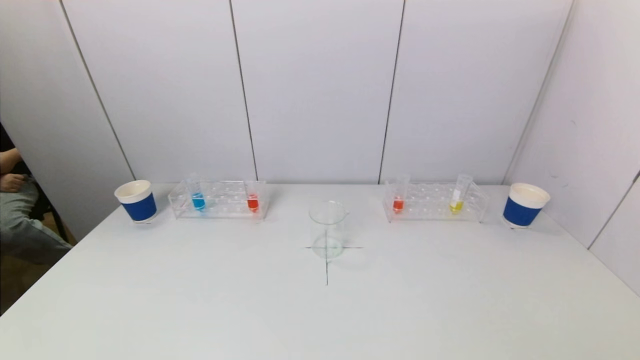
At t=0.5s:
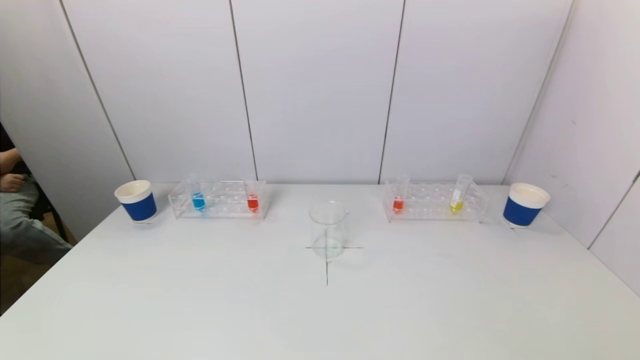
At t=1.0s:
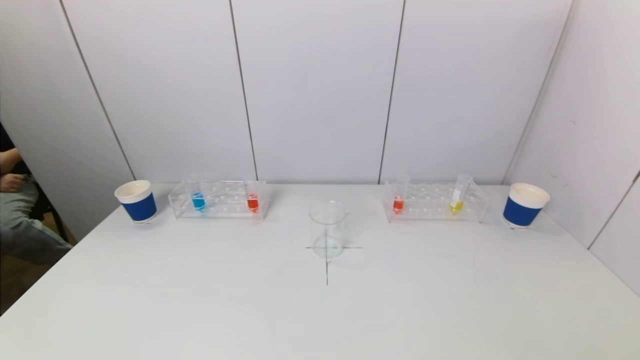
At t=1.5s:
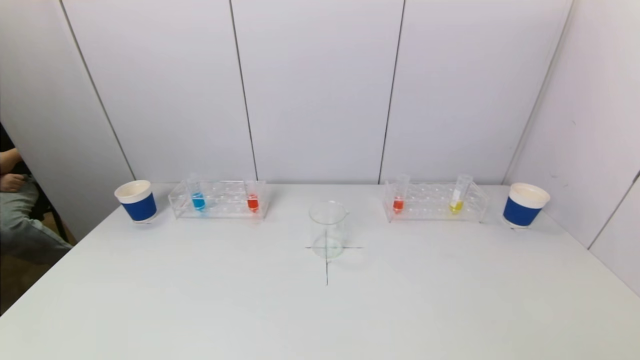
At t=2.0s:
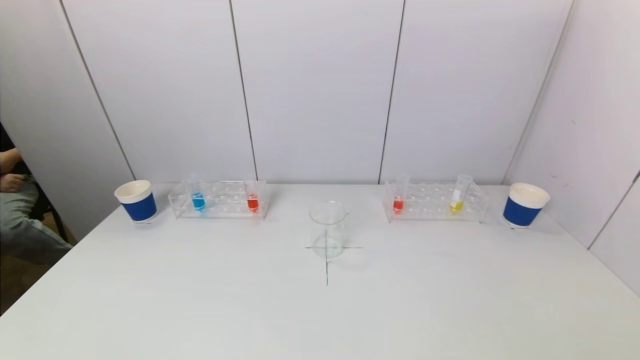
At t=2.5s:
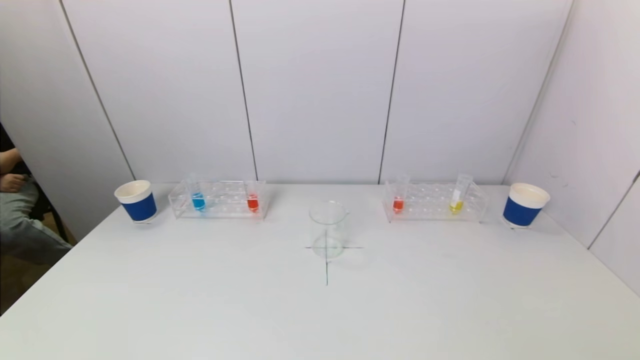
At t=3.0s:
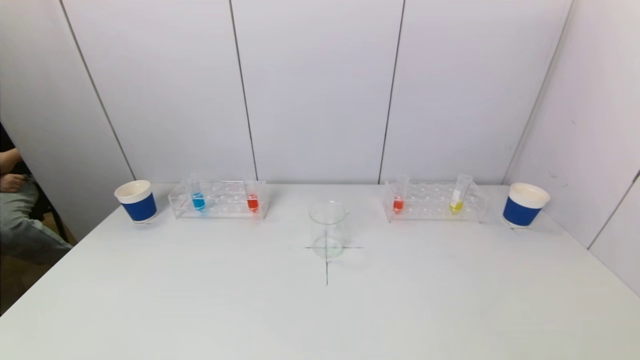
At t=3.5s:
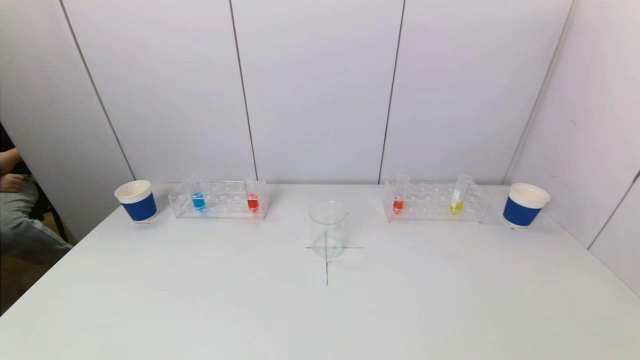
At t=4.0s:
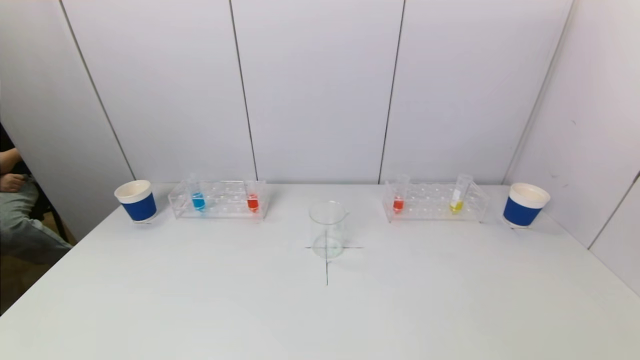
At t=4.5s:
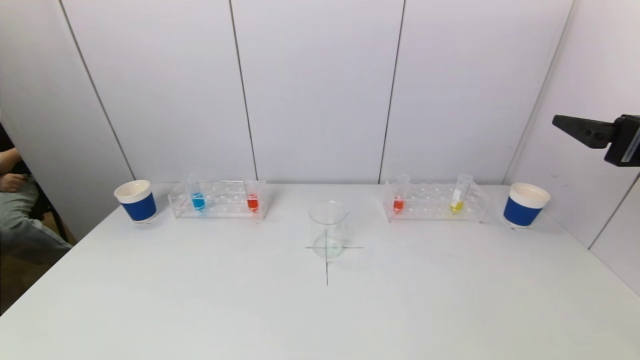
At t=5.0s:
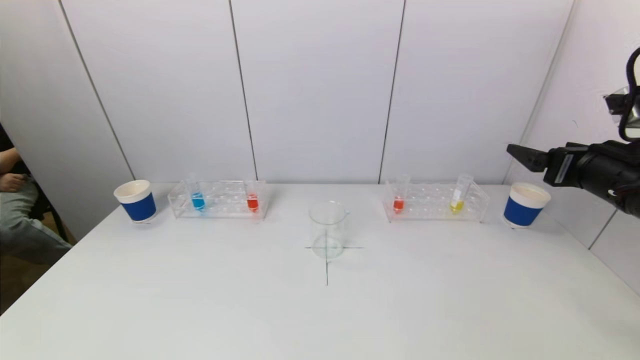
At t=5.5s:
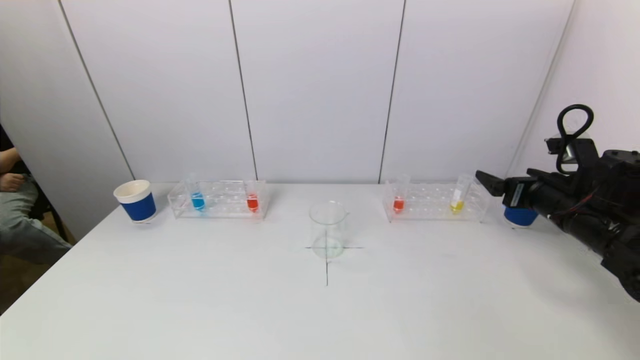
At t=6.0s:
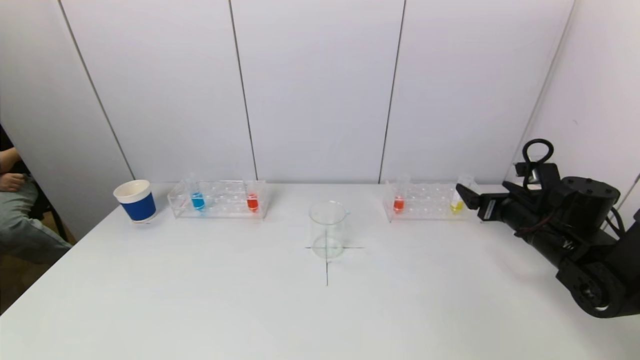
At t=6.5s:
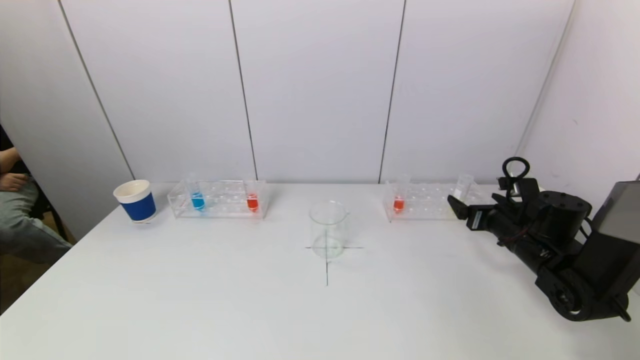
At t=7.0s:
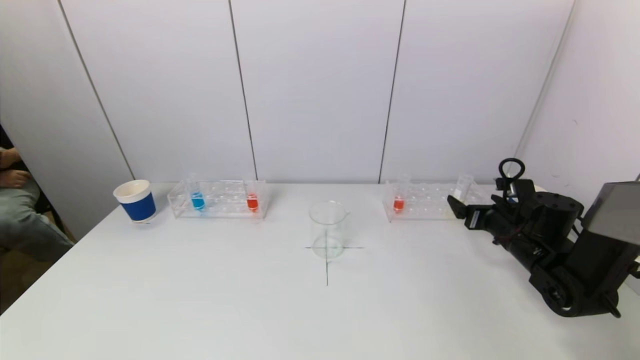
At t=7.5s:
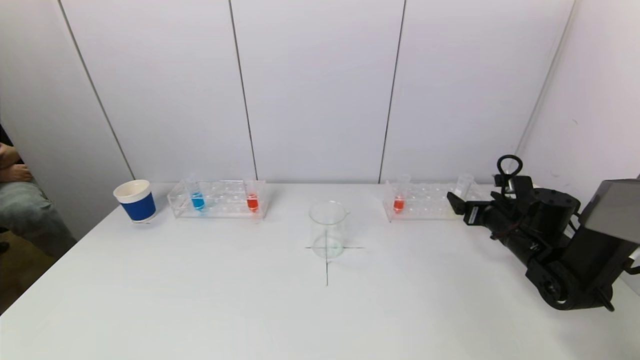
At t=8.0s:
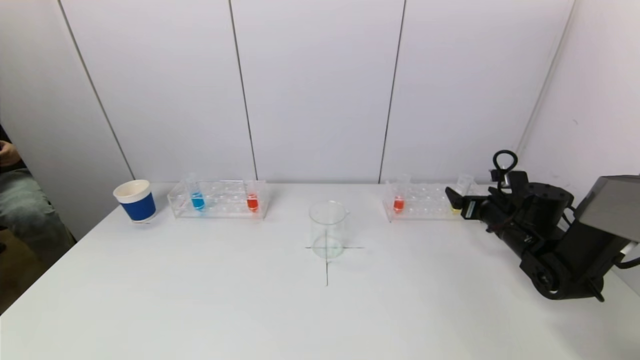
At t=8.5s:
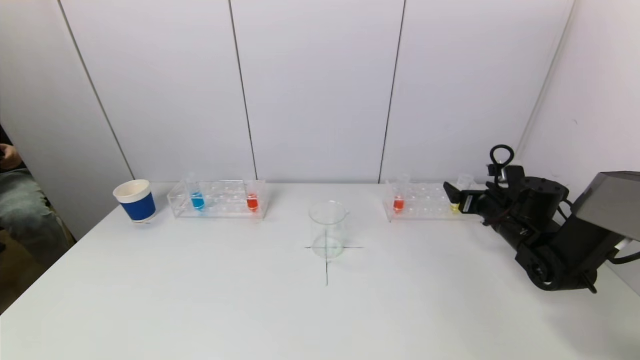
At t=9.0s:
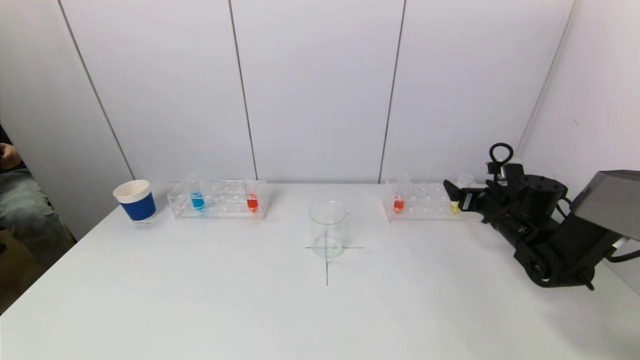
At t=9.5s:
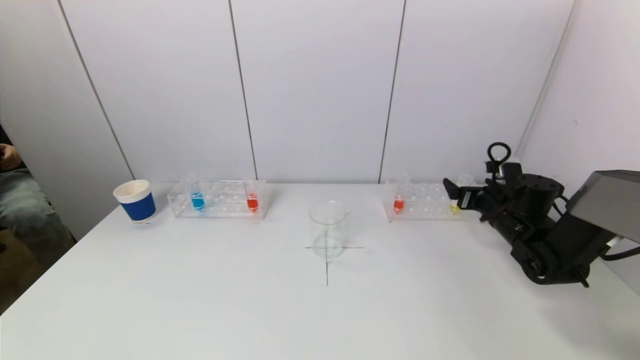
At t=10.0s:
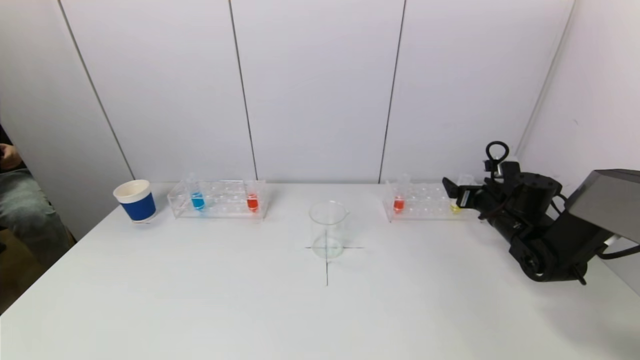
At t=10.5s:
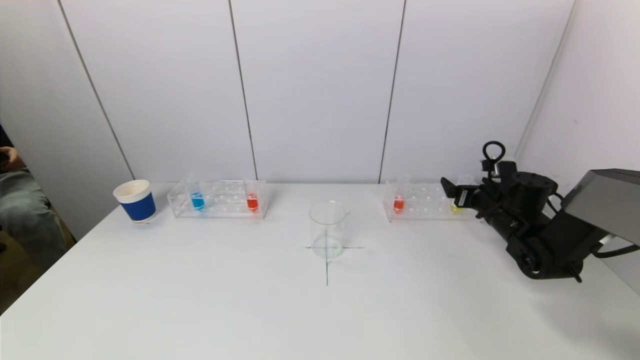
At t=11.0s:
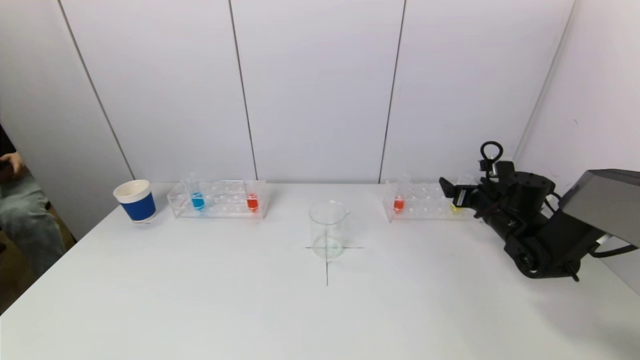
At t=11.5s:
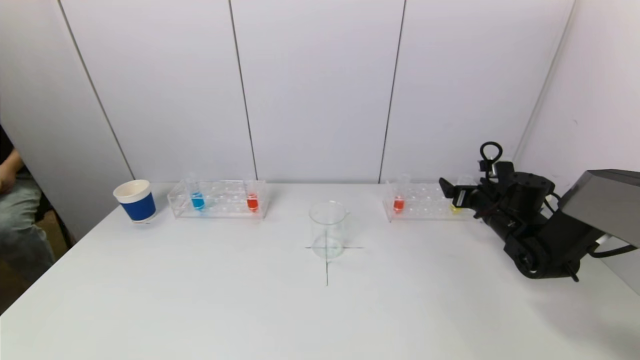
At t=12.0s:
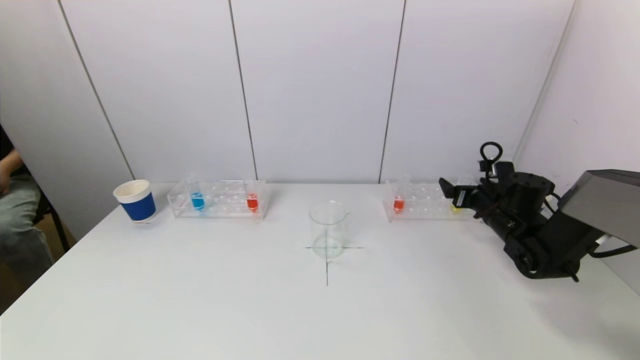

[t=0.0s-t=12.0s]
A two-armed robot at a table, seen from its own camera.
Task of the whole recording: pick up a test tube with pigment on left test tube rack and a test tube with pigment on right test tube rack by grippers and pour them into the beaker.
t=0.0s to t=2.0s: Neither gripper changes place.
t=4.0s to t=6.0s: The right gripper is displaced downward and forward by approximately 30 cm.
t=6.0s to t=8.0s: The right gripper shifts by about 5 cm.
t=8.0s to t=10.0s: The grippers move only a little.
t=10.0s to t=12.0s: Neither gripper changes place.

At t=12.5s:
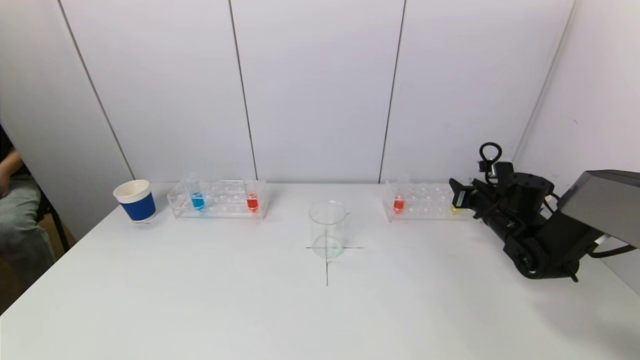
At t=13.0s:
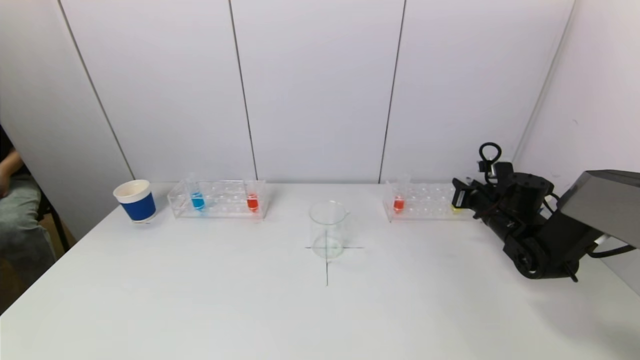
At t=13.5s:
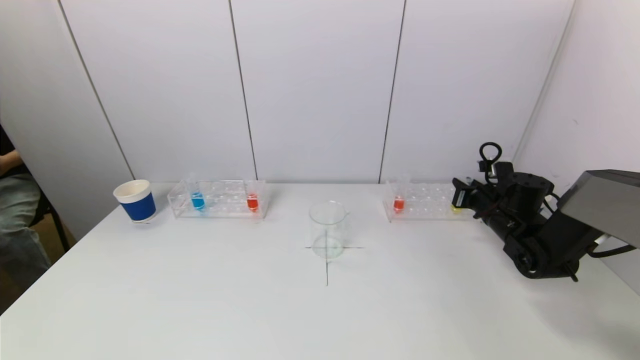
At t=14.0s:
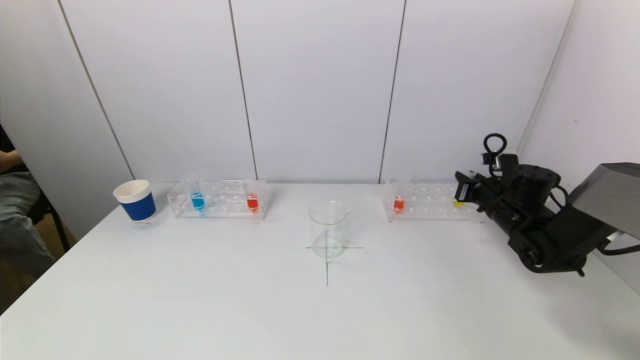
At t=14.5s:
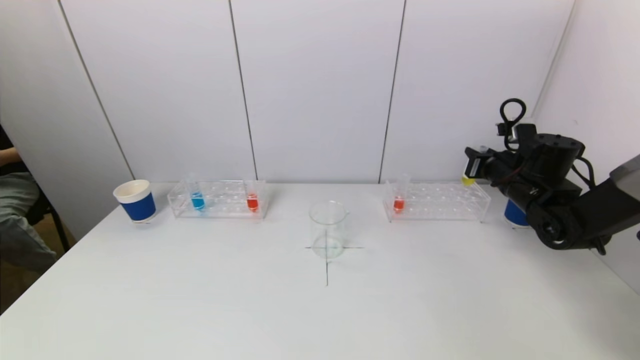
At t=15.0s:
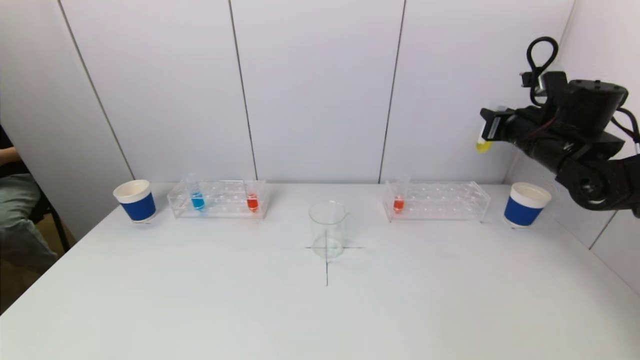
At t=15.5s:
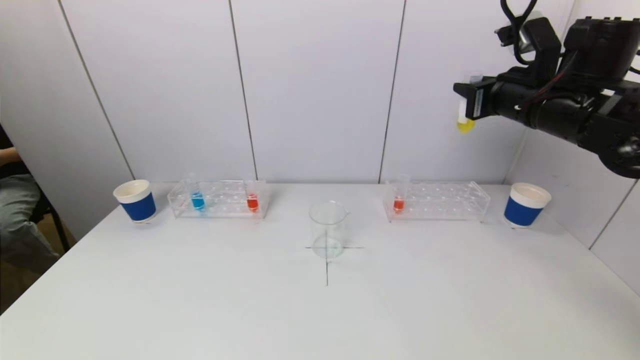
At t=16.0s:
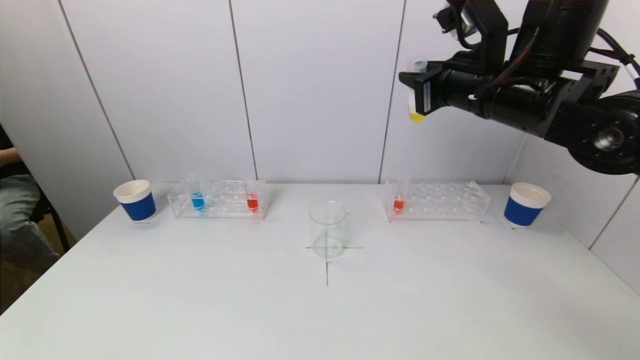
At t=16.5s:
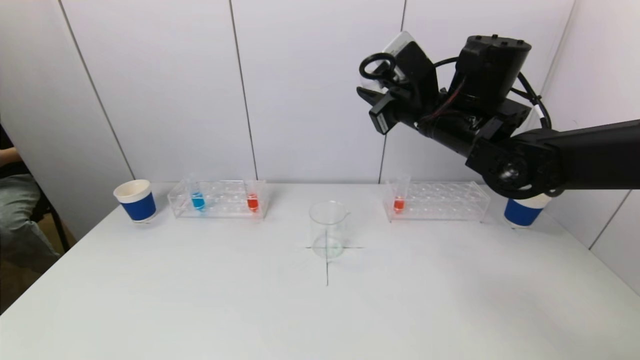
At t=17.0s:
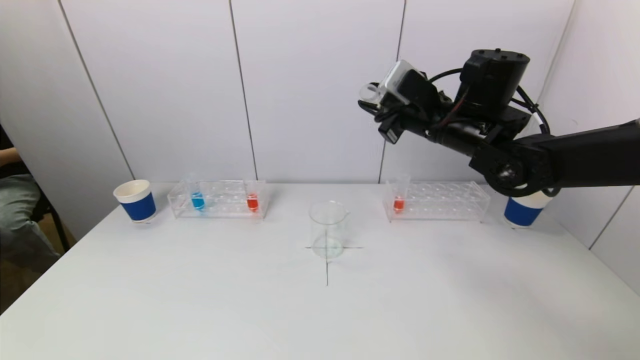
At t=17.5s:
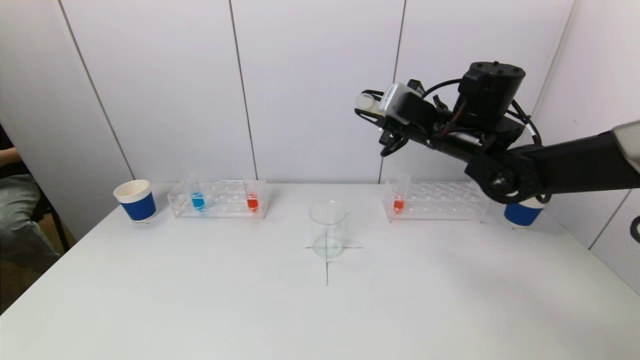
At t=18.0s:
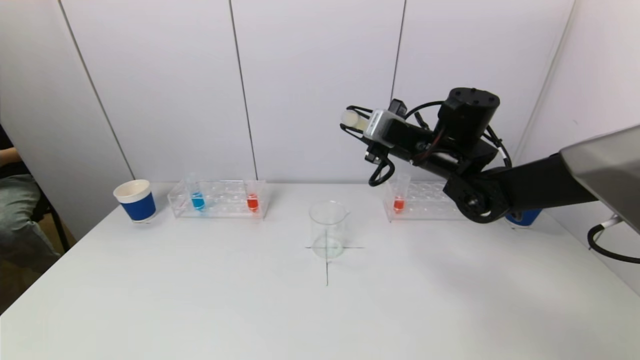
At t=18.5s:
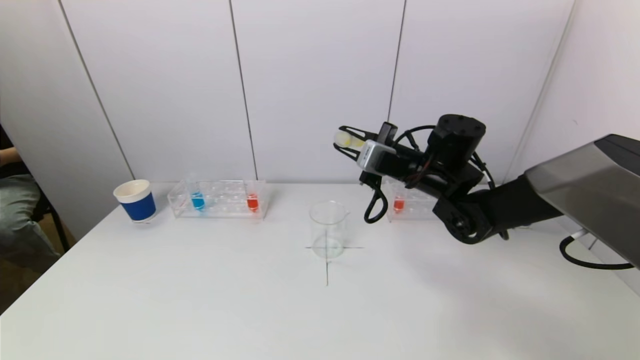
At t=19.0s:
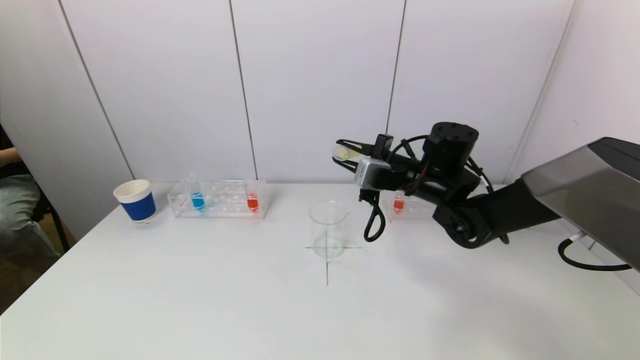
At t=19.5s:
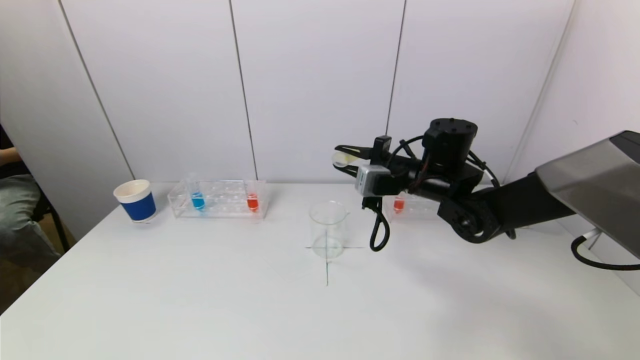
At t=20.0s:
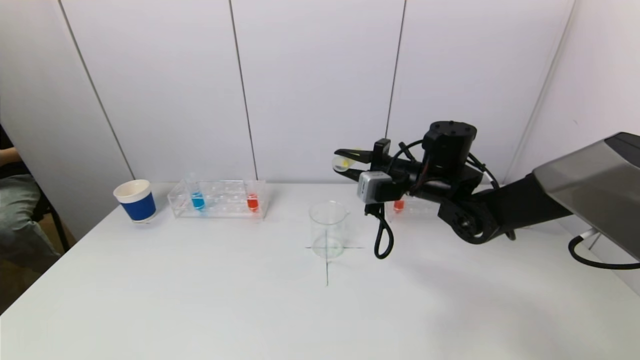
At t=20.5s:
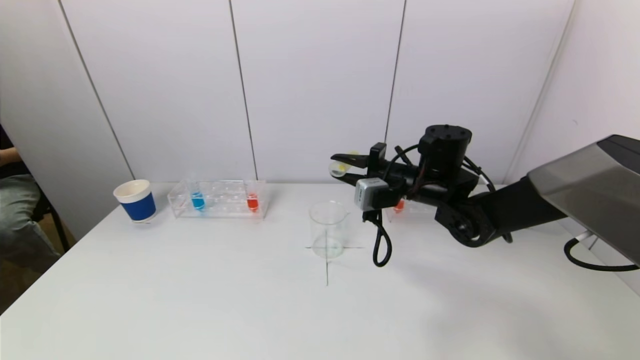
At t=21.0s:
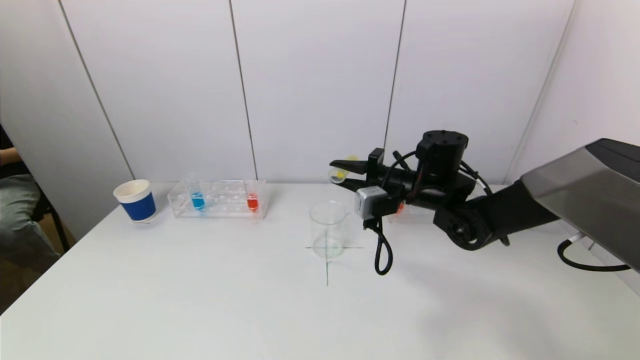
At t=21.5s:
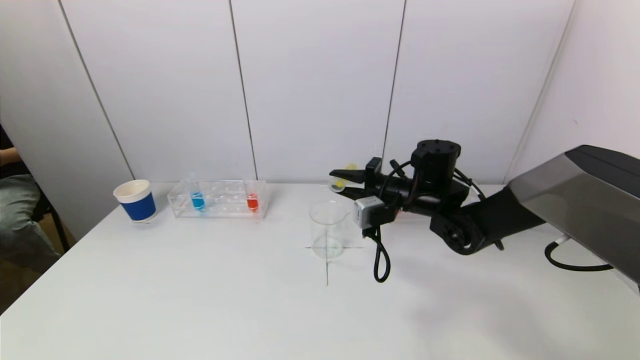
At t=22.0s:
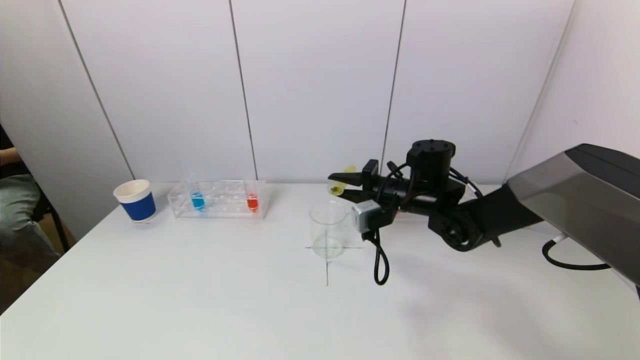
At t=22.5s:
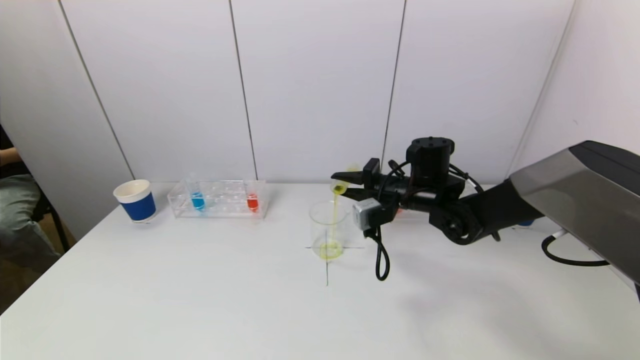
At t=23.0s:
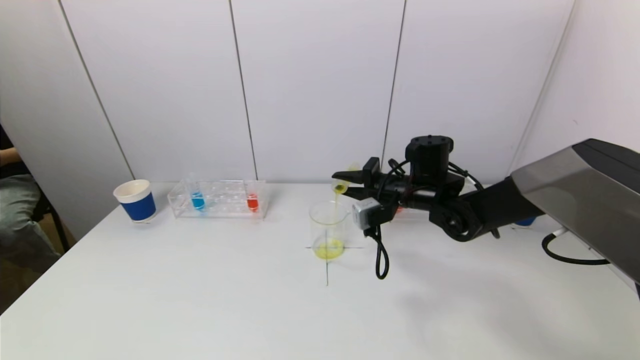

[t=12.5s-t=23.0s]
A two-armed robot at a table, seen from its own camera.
Task of the whole recording: pick up a test tube with pigment on left test tube rack and a test tube with pigment on right test tube rack by grippers and pour them into the beaker.
t=12.5s to t=14.5s: The right gripper is displaced upward by approximately 10 cm.
t=14.5s to t=16.5s: The right gripper goes approximately 25 cm to the left and upward.
t=16.5s to t=19.0s: The right gripper travels downward by some 10 cm.
t=19.0s to t=21.0s: The grippers stay close to where they were, moving slightly.
t=21.0s to t=23.0s: The grippers stay close to where they were, moving slightly.
